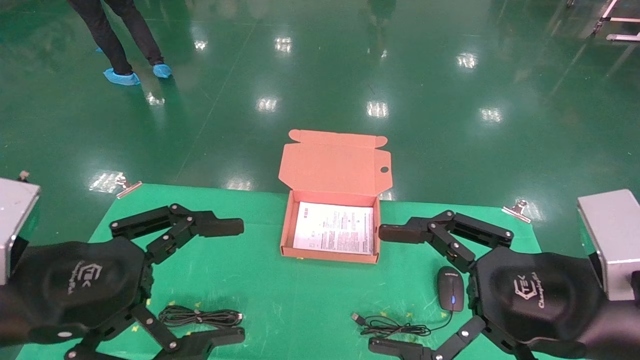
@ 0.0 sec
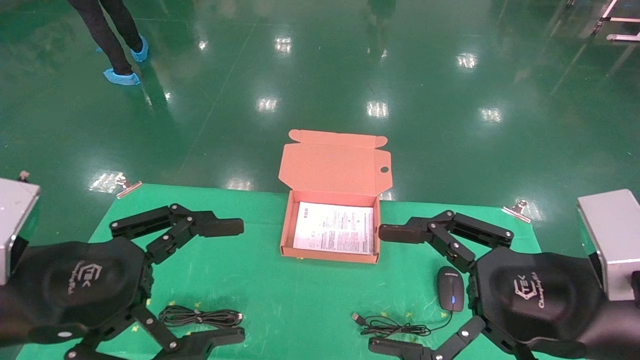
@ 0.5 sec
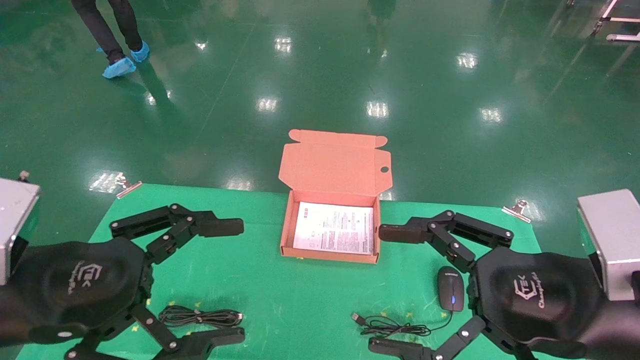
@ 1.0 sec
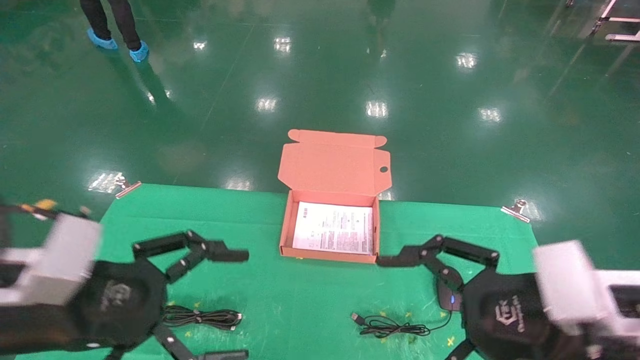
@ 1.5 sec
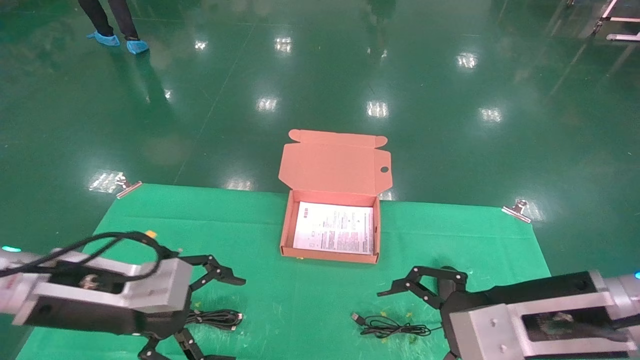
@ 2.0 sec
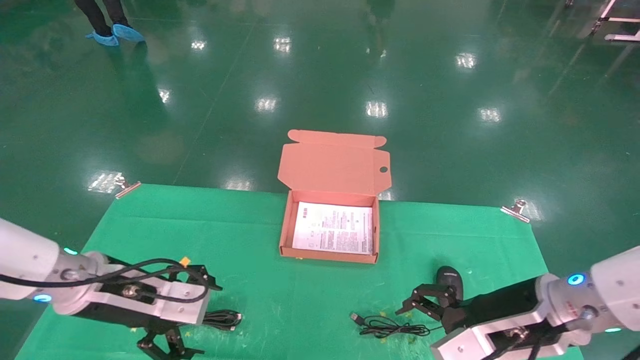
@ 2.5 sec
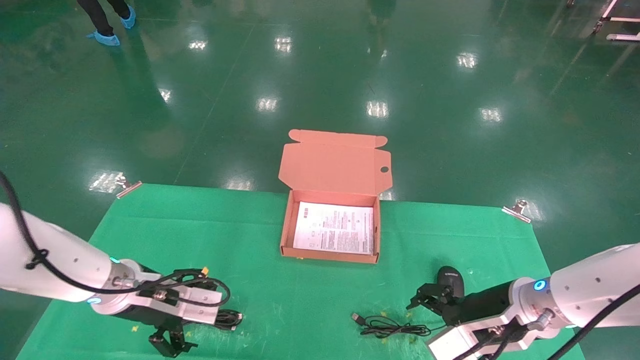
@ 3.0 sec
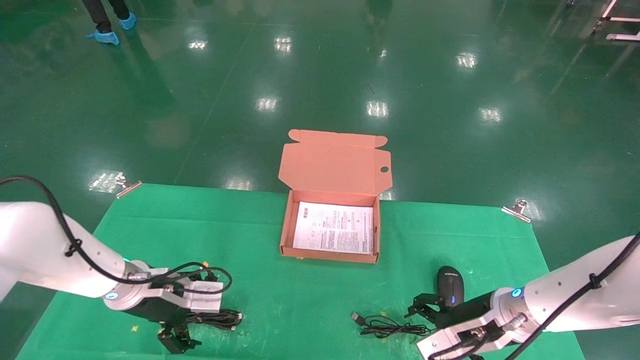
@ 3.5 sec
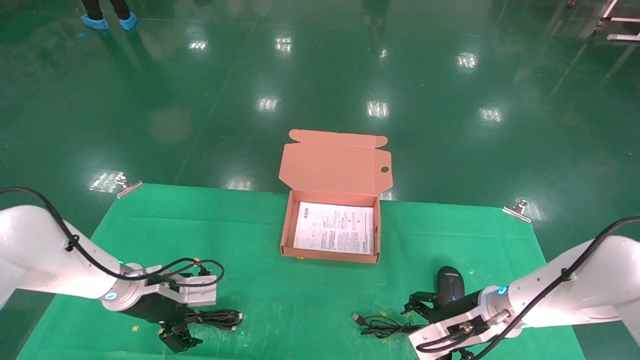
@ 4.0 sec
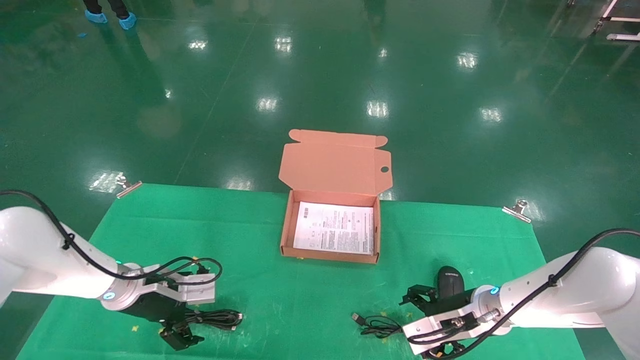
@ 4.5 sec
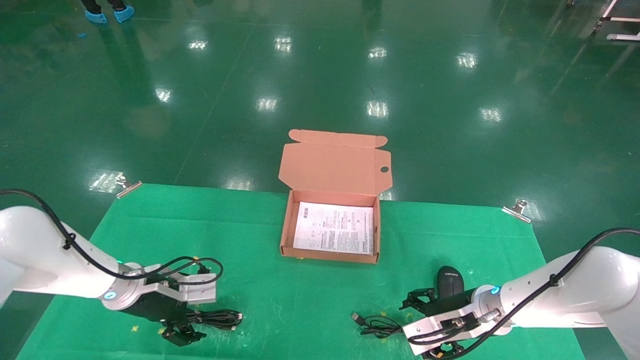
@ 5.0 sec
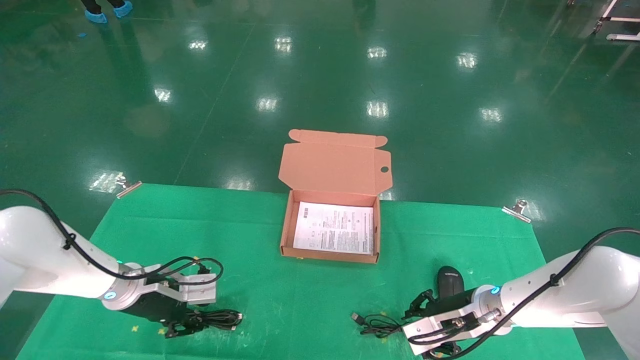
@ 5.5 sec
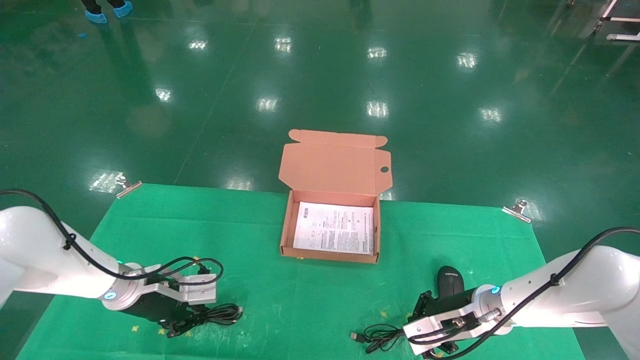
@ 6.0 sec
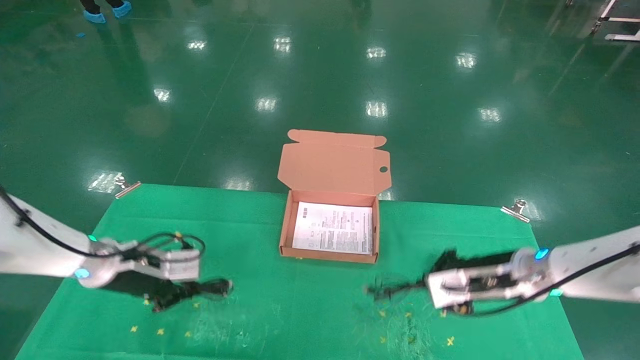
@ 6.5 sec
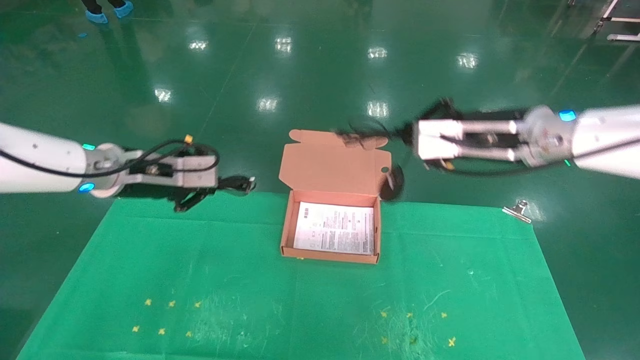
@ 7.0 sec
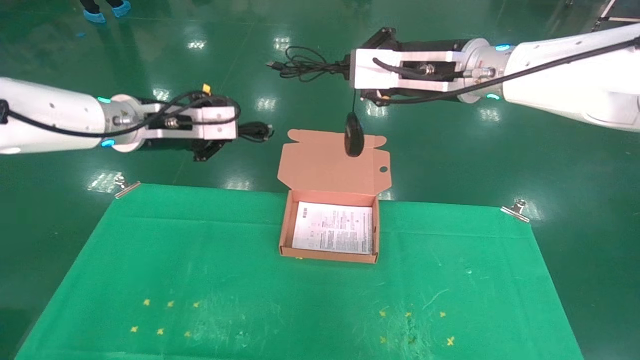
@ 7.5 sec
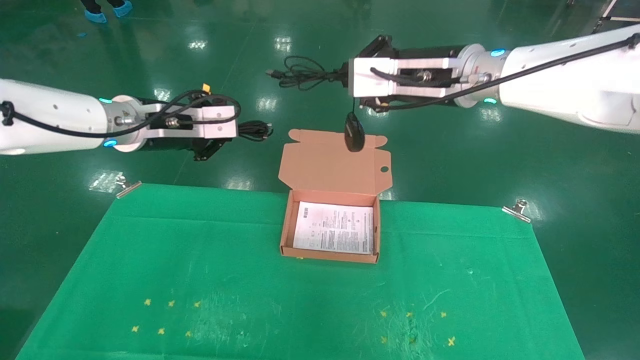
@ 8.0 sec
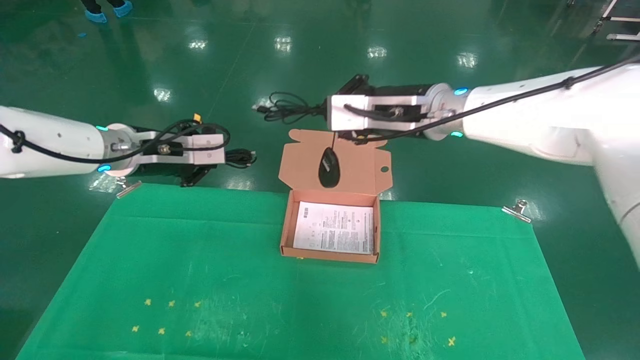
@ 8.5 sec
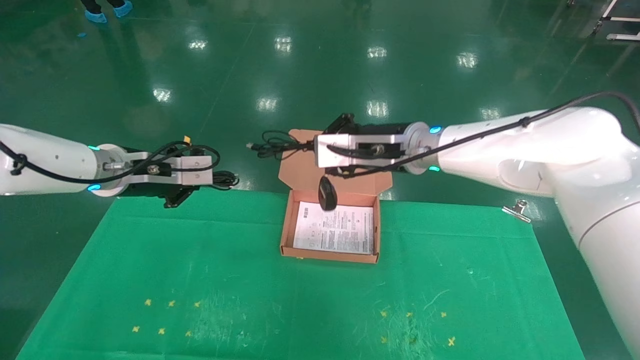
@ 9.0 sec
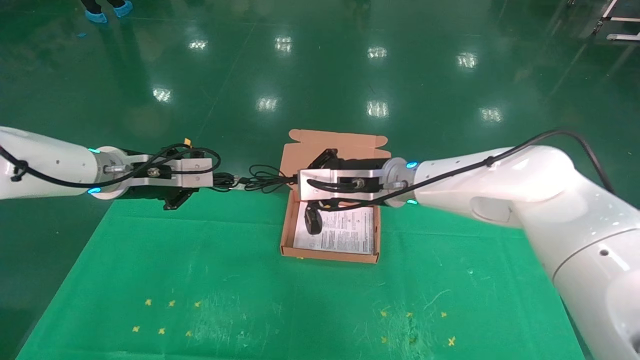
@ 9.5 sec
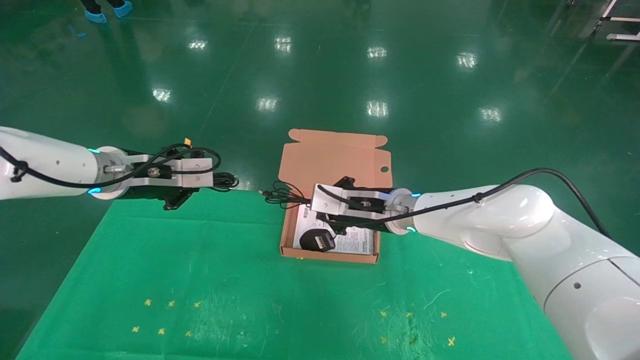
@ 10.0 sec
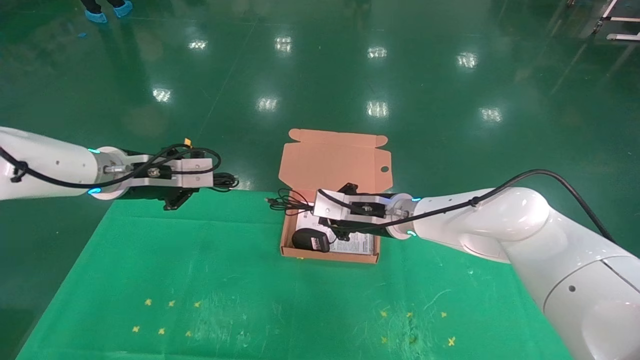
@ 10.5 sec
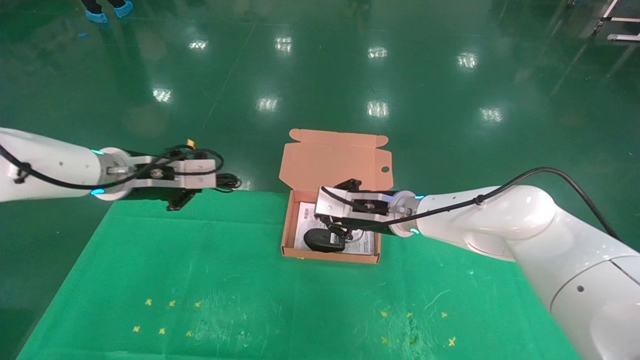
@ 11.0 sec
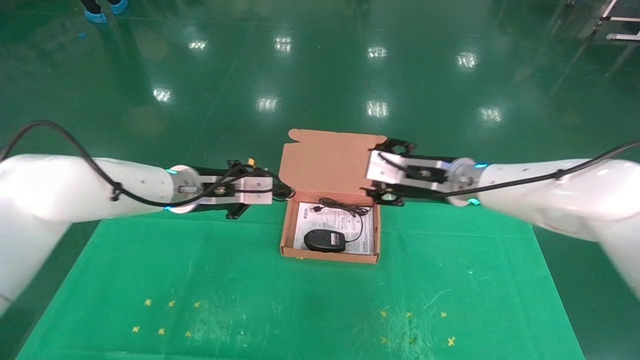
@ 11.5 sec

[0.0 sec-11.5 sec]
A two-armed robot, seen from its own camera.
Task of the whole recording: grasp data cable left put into box grasp mouse right put into box.
Step, 2.0 sec to 6.0 sec: Grab and pick up both the mouse and power cord from the accessory packaging area at the same time.
0.0 sec to 2.0 sec: Both grippers travel together forward, roughly 5 cm.
2.0 sec to 4.0 sec: Both grippers travel together forward and downward, some 20 cm.
4.0 sec to 6.0 sec: The left gripper closes, while the right gripper closes its fingers.
6.0 sec to 7.5 sec: Both grippers move upward, about 30 cm.
7.5 sec to 9.5 sec: The left gripper moves downward, about 5 cm. The right gripper goes approximately 15 cm downward and to the left.
9.5 sec to 11.5 sec: The two grippers go approximately 10 cm to the right. The right gripper opens its fingers.

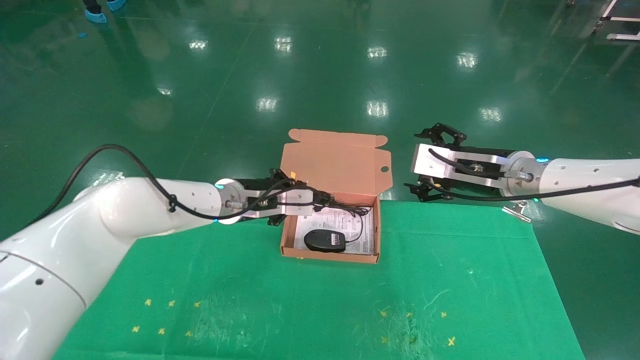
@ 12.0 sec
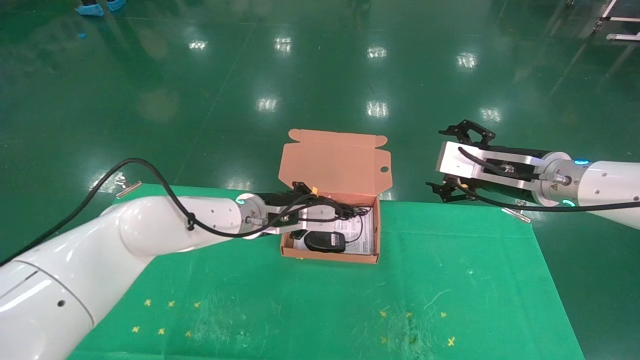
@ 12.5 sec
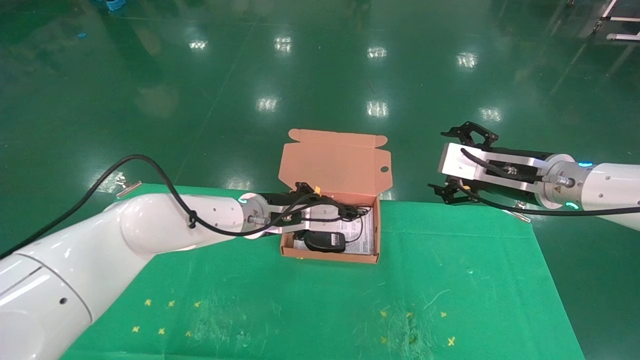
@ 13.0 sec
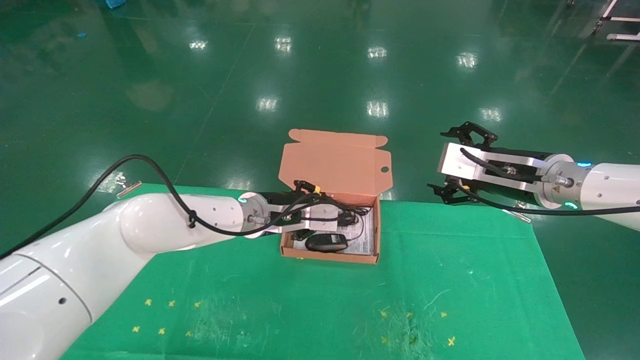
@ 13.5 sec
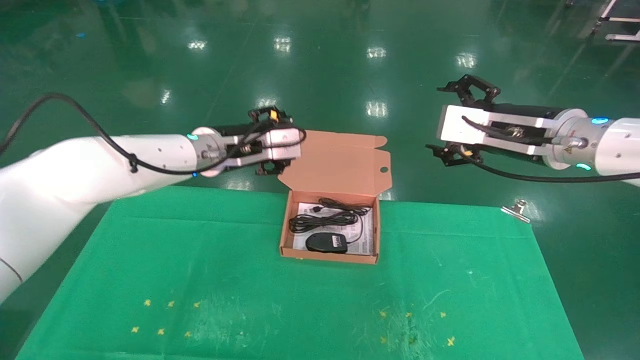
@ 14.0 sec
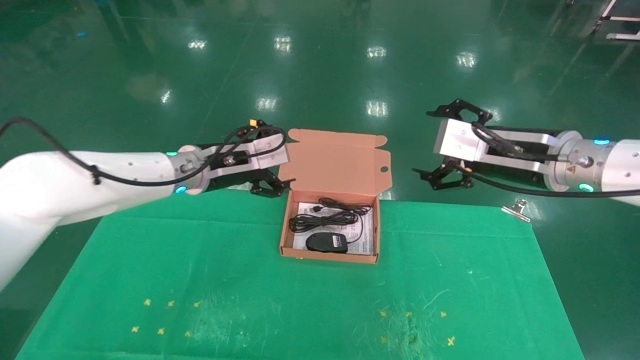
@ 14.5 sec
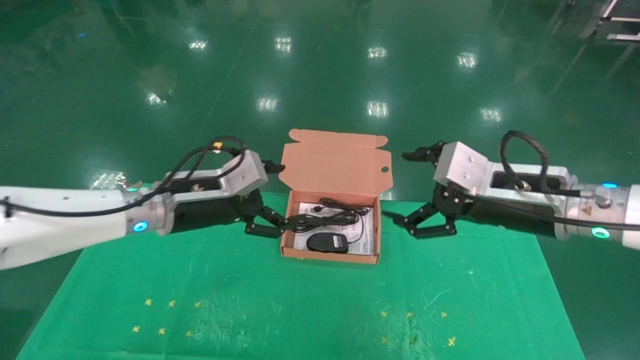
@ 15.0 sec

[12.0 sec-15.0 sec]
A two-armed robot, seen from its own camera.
Task of the whole recording: grasp data cable left put into box grasp mouse right put into box.
12.0 sec to 13.5 sec: The grippers stay close to where they were, moving slightly.
13.5 sec to 15.0 sec: The left gripper moves to the left and backward, some 15 cm, and opens up. The right gripper goes some 10 cm backward.
